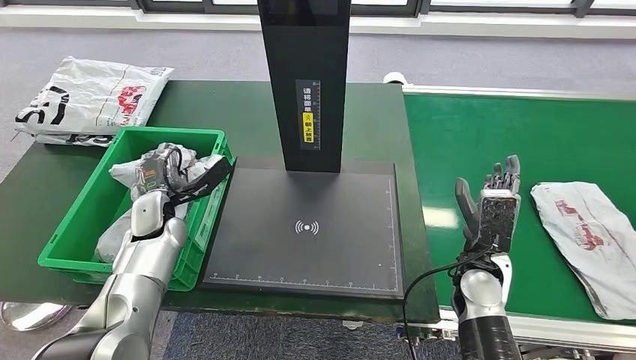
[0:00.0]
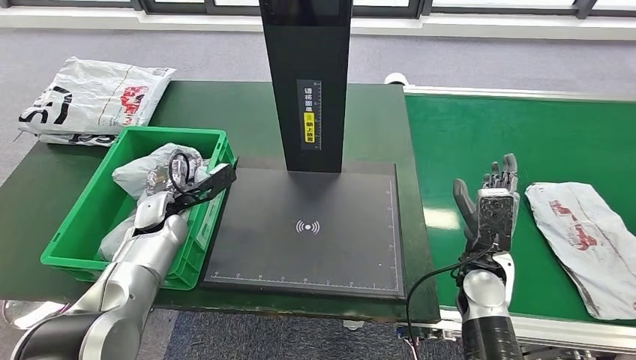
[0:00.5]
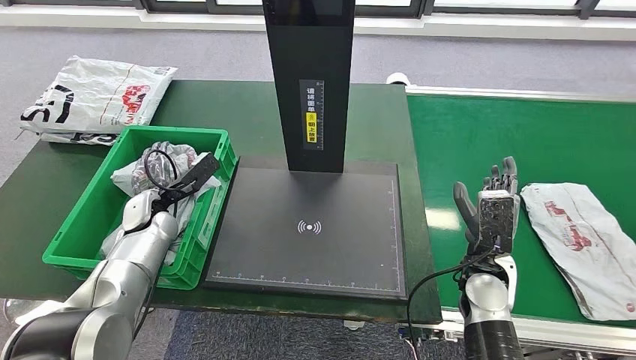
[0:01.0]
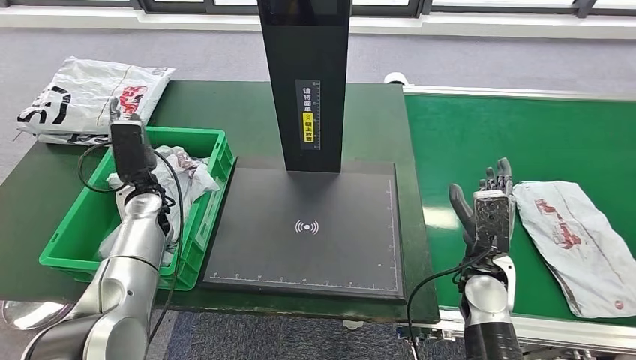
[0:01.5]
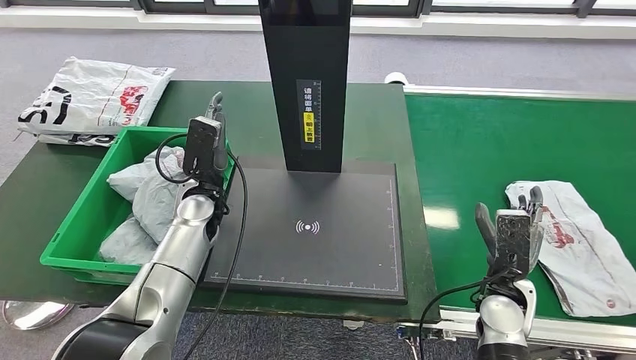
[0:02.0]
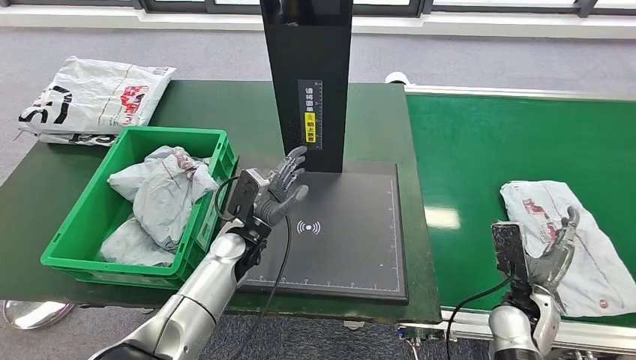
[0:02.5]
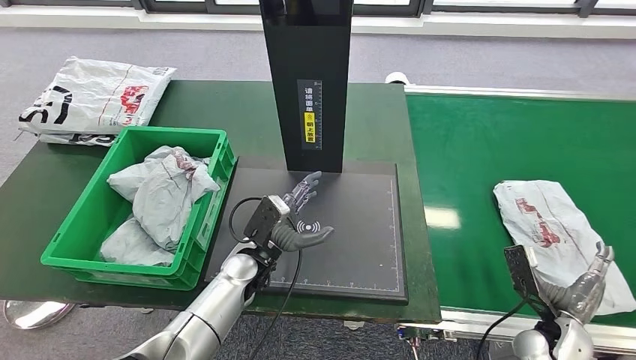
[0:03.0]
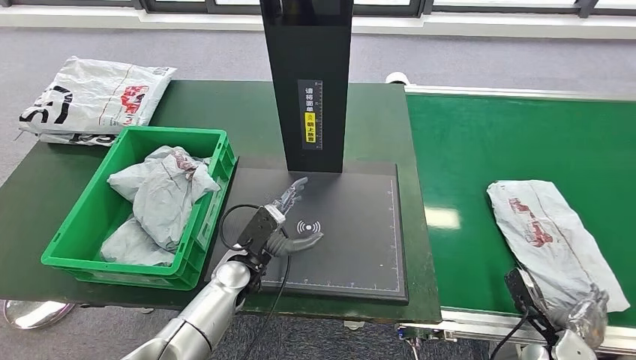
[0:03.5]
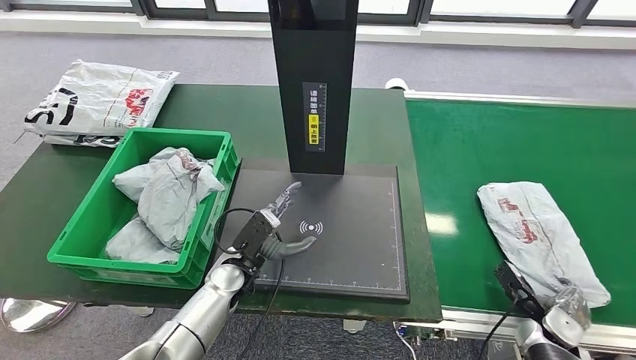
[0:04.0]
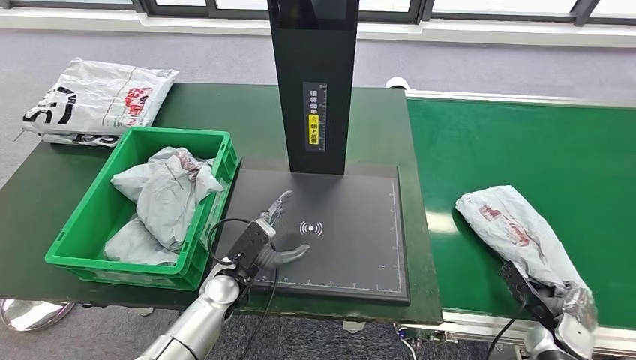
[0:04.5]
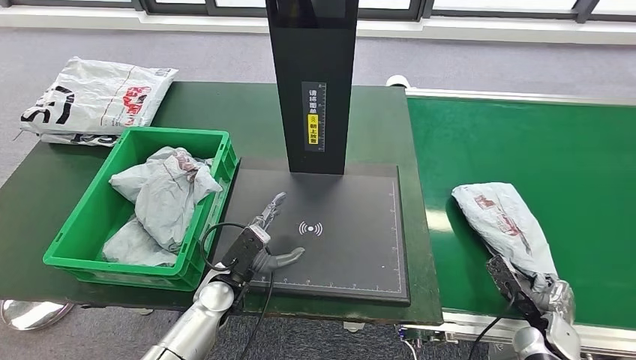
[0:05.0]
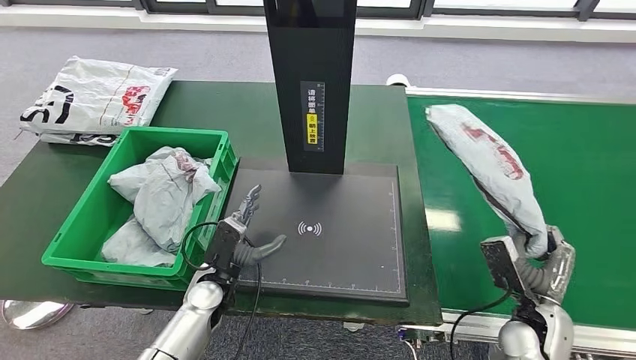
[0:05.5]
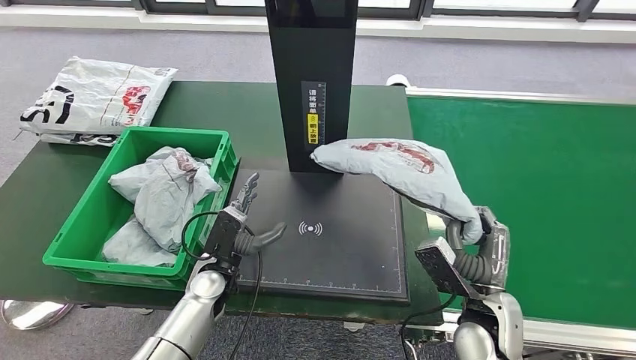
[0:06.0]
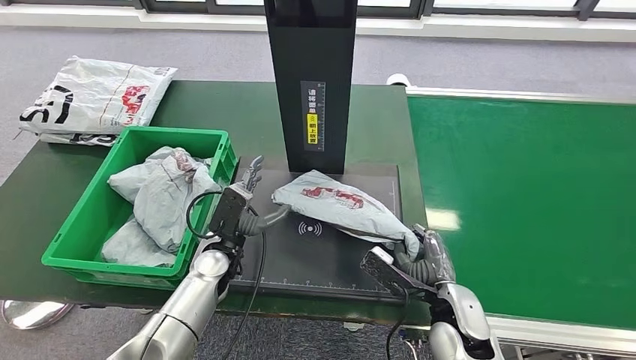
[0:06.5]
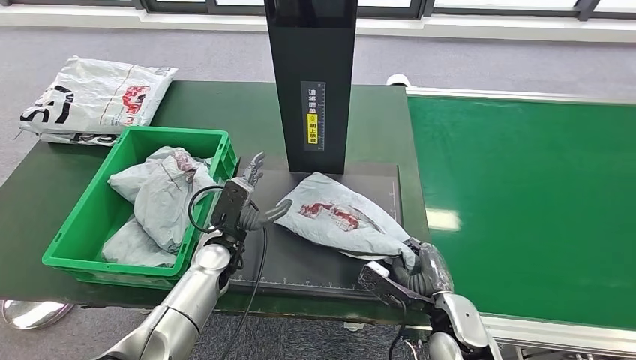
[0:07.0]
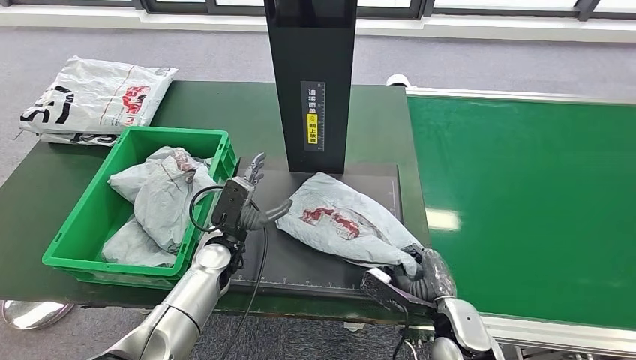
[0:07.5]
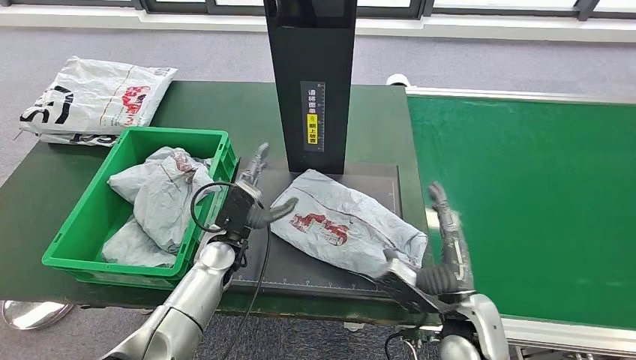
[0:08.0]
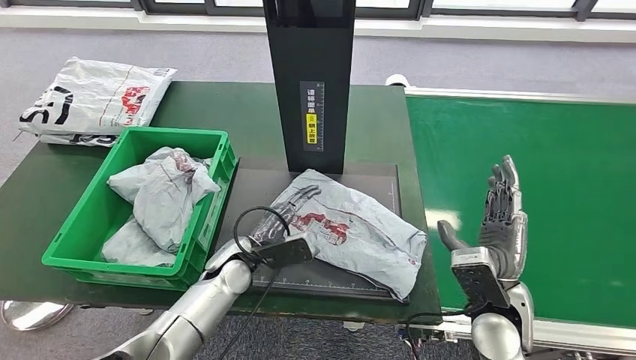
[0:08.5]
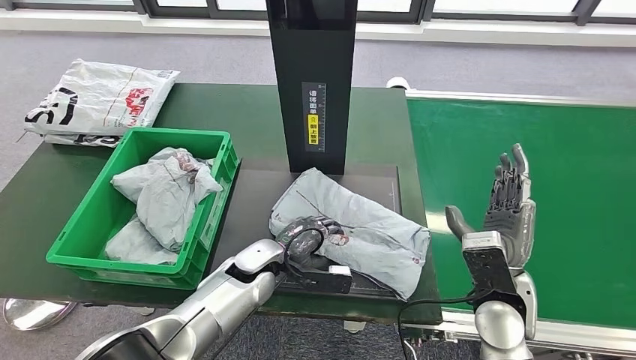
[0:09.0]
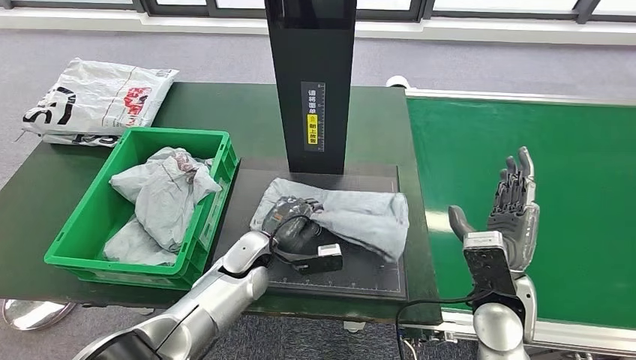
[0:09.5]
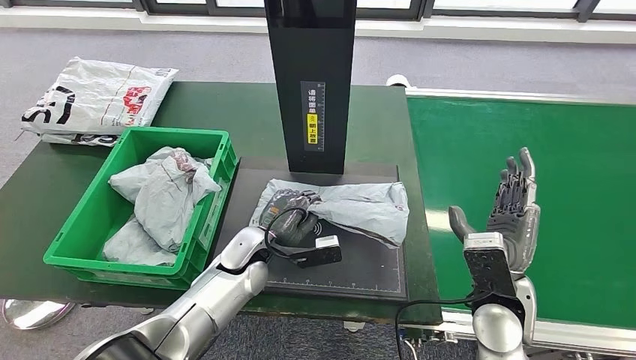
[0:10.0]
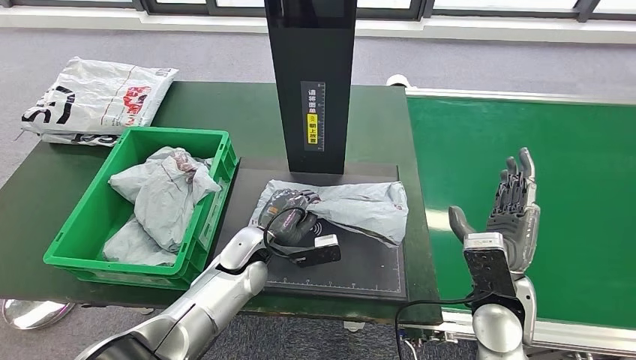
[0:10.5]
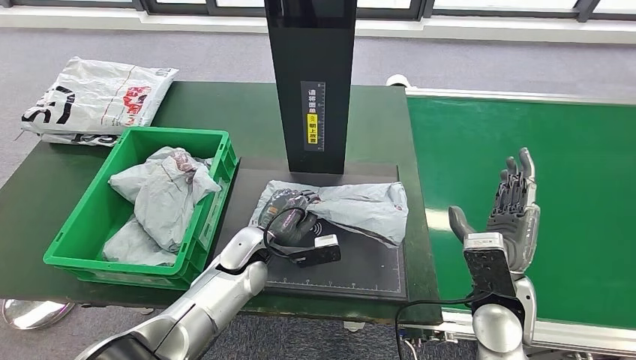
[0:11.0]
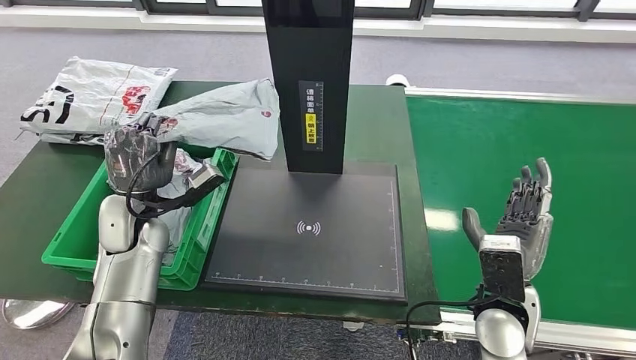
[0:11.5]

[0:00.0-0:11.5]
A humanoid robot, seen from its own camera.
Step, 0:00.0 to 0:01.5: Place the parcel into the delivery box.
Step, 0:02.0 to 0:05.5: Pick up the parcel from the conveyor belt.
Step, 0:06.0 to 0:08.0: Place the parcel onto the inbound machine.
Step, 0:08.5 to 0:11.0: Pick up the parcel from the inbound machine.
0:00.0 to 0:02.0: The right hand moves roughly 5 cm; the left hand moves to the right, roughly 10 cm.
0:06.0 to 0:07.5: The left hand changes place by approximately 5 cm; the right hand ends up approximately 5 cm from where it was.

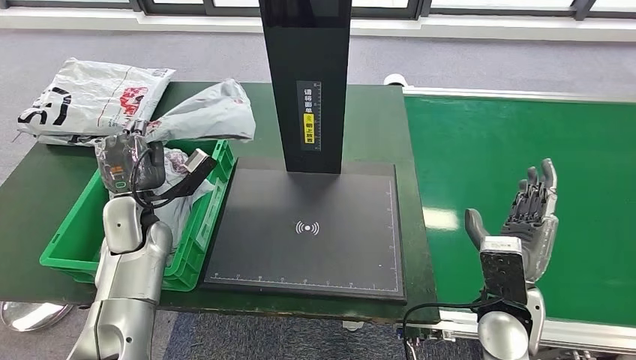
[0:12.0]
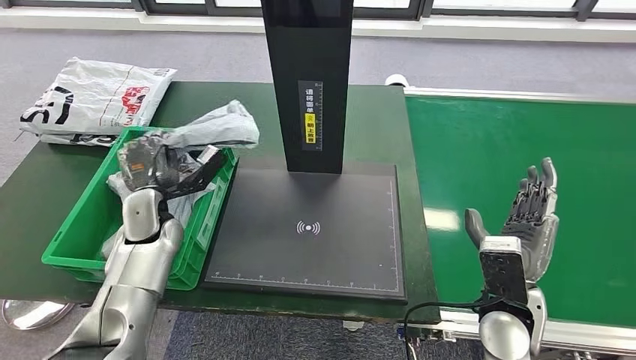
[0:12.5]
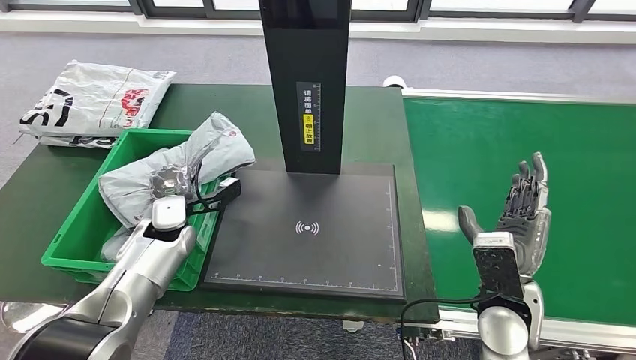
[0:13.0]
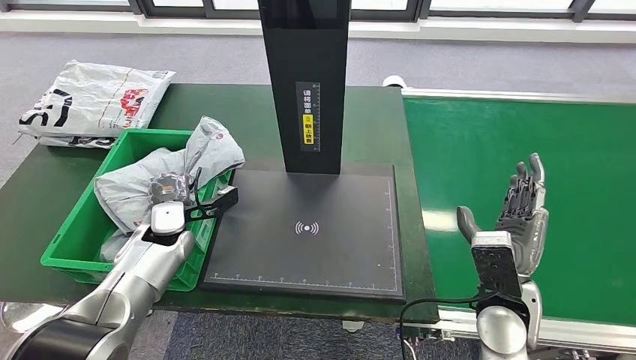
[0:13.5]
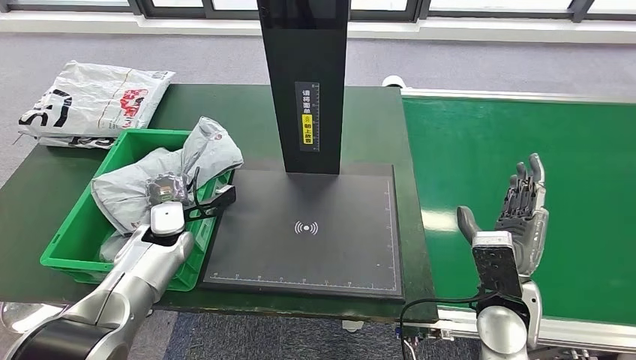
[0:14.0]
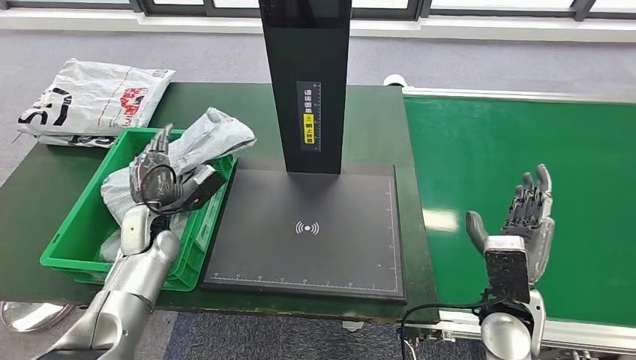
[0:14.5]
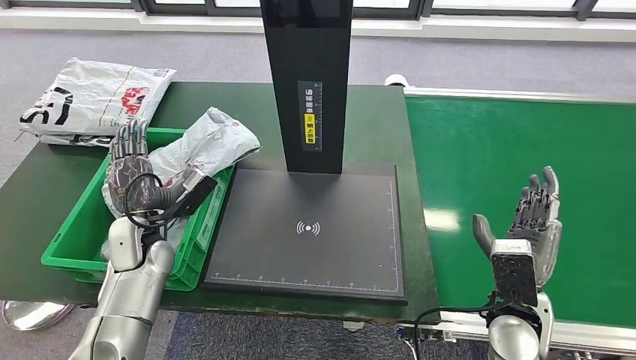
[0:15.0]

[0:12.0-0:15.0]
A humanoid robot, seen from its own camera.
Step, 0:12.0 to 0:15.0: Place the parcel into the delivery box.

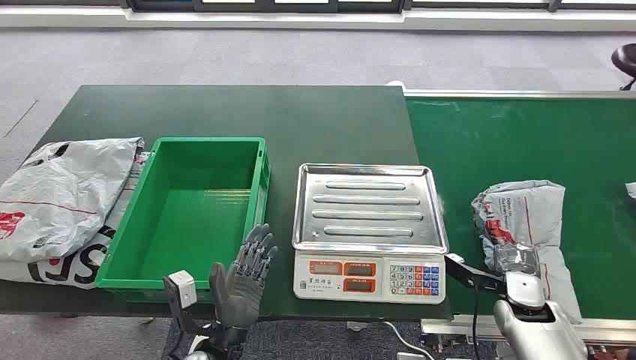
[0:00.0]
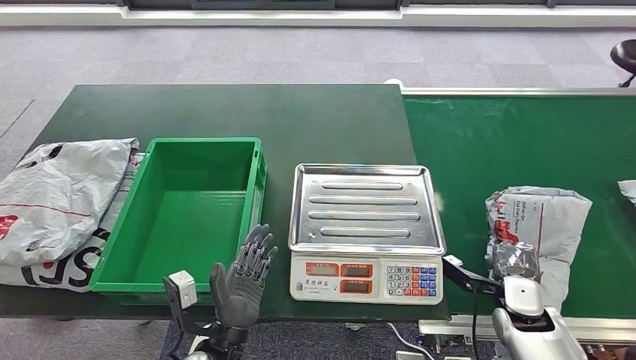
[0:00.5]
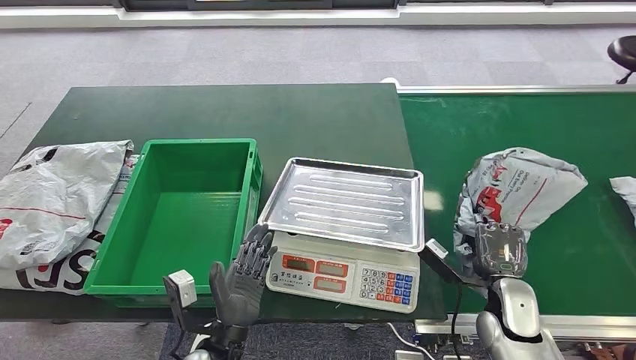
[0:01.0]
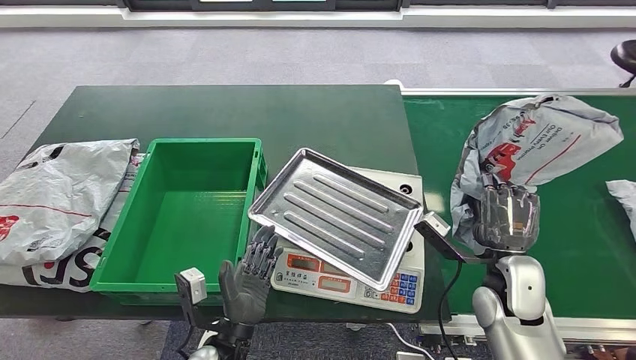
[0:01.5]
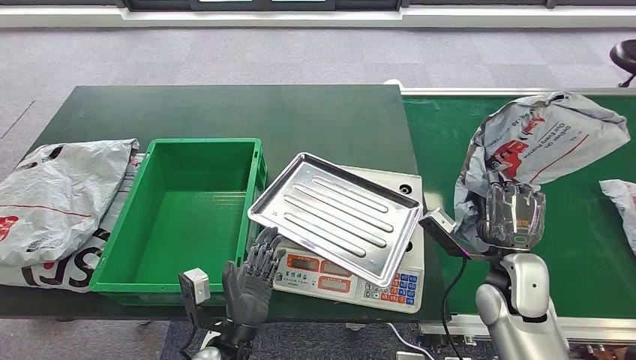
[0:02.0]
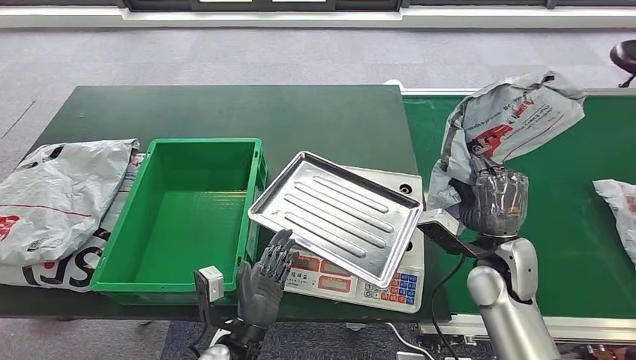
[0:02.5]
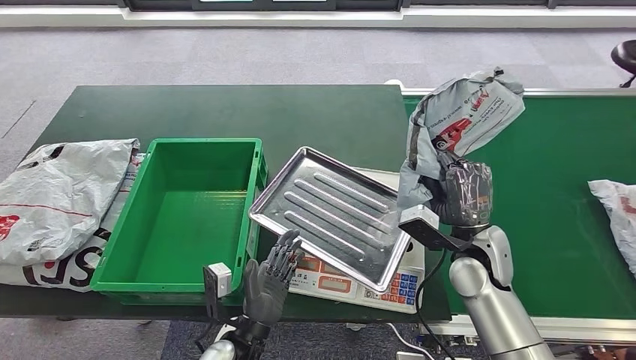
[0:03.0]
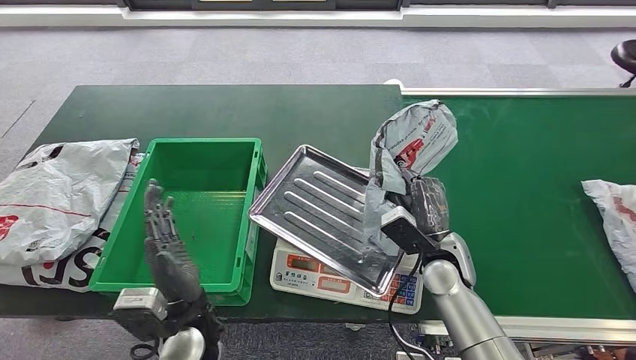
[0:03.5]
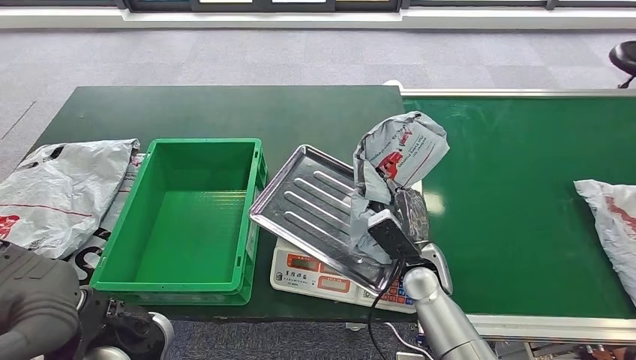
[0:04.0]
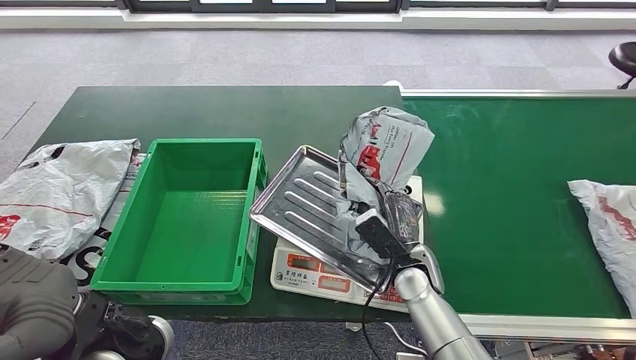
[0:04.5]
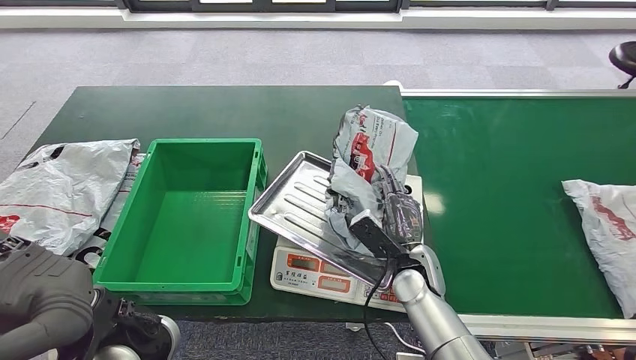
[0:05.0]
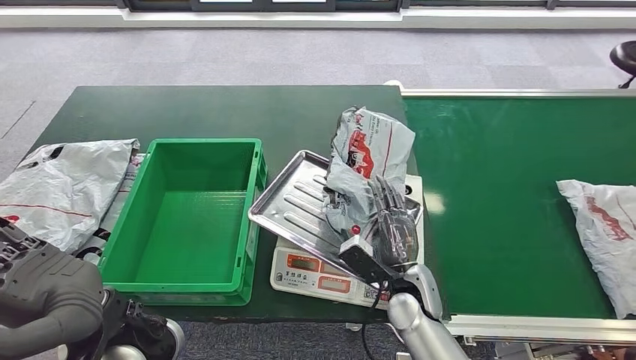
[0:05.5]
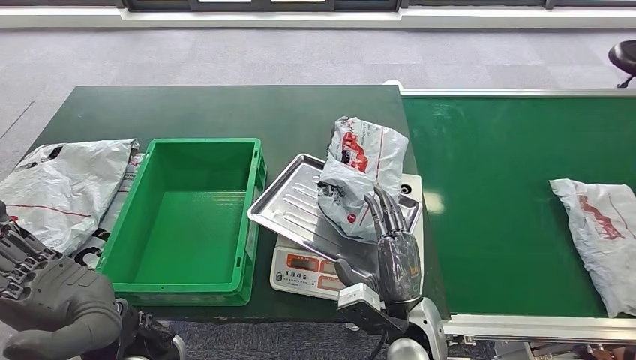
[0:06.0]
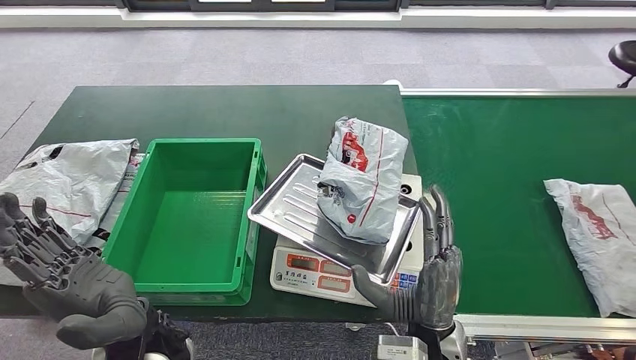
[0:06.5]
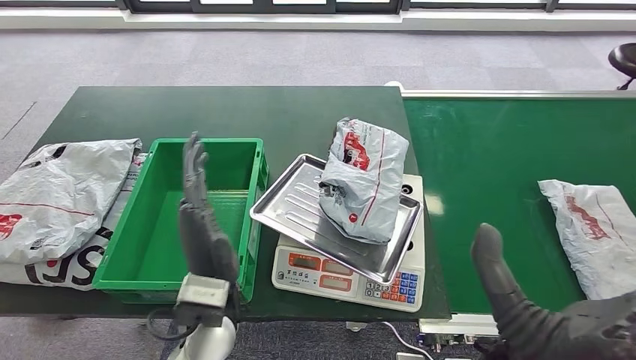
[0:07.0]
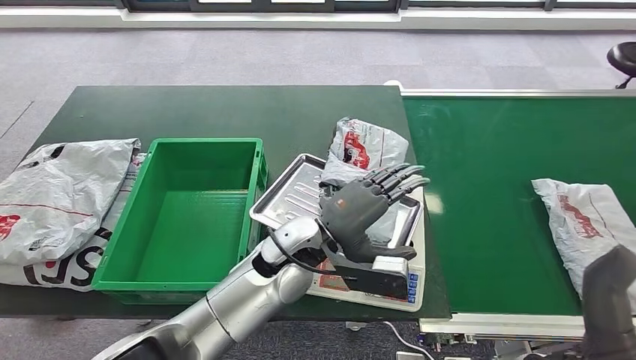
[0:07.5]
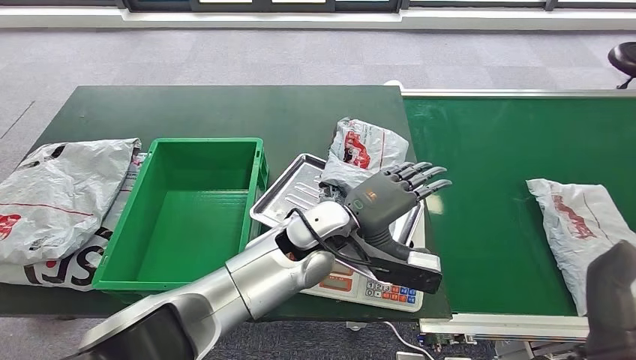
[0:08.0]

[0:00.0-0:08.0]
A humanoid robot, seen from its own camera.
Step, 0:00.0 to 0:00.5: Take the parcel off the conveyor belt.
Step, 0:02.5 to 0:05.0: Place the parcel onto the inbound machine.
0:04.0 to 0:06.0: The right hand goes approximately 10 cm backward.
